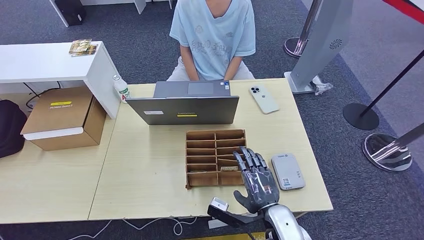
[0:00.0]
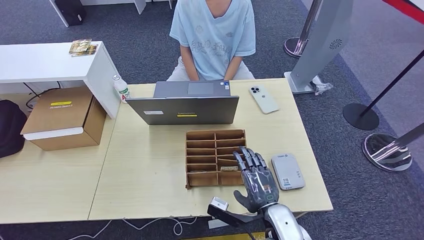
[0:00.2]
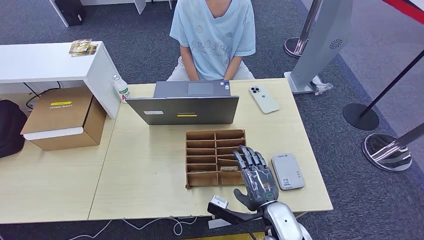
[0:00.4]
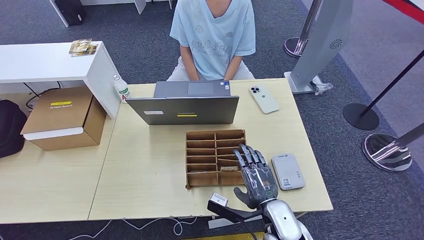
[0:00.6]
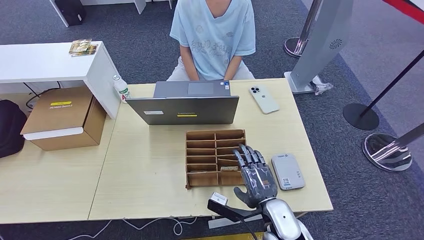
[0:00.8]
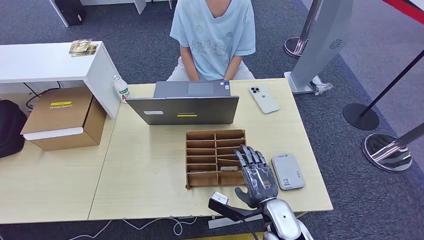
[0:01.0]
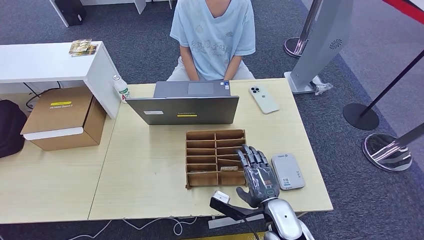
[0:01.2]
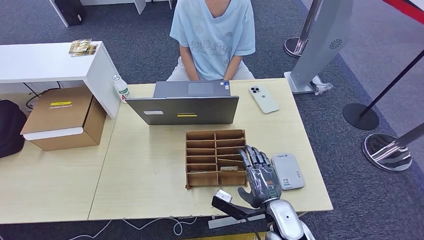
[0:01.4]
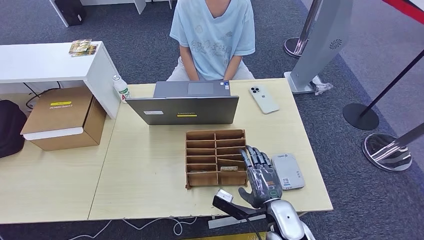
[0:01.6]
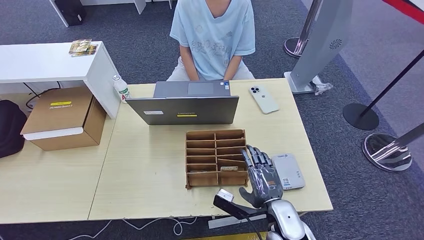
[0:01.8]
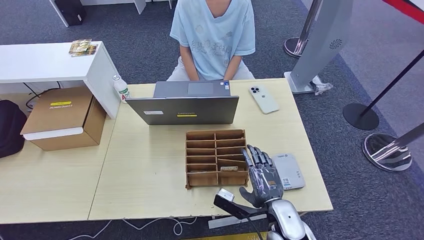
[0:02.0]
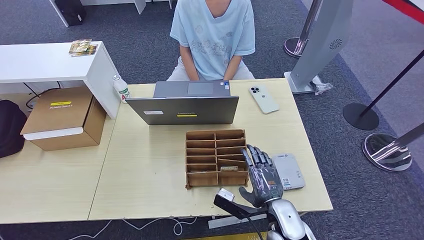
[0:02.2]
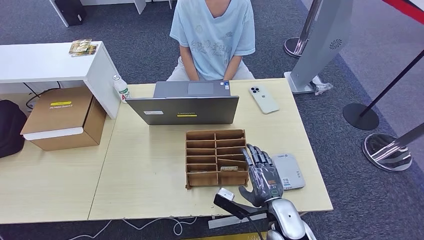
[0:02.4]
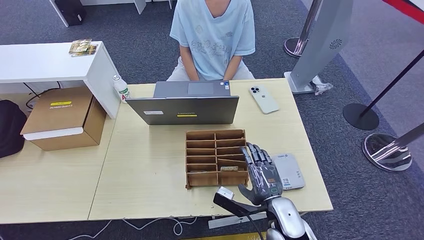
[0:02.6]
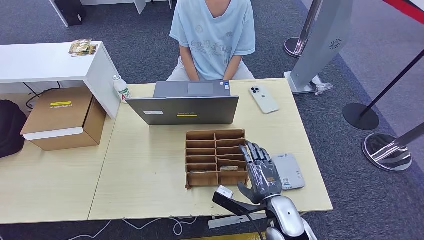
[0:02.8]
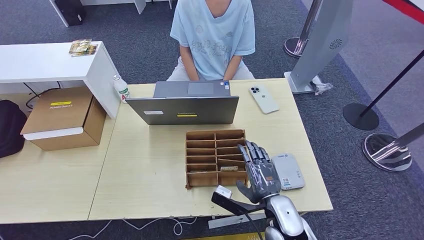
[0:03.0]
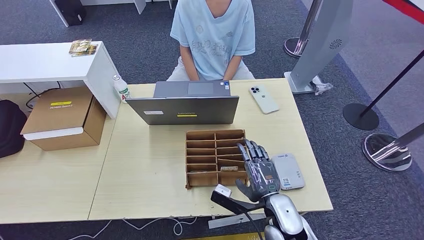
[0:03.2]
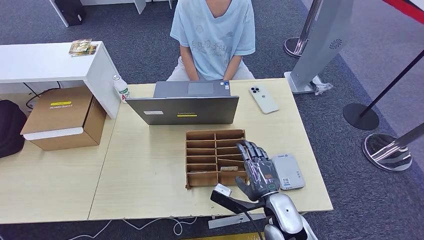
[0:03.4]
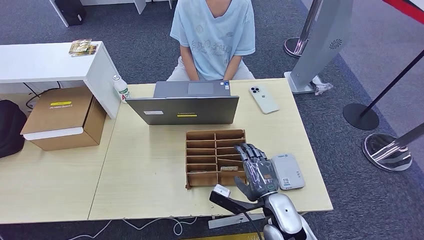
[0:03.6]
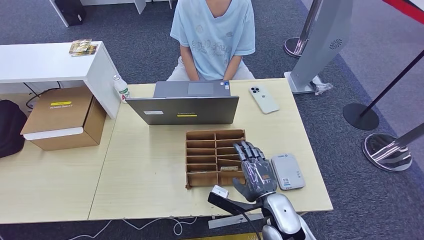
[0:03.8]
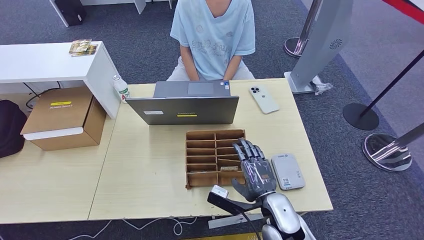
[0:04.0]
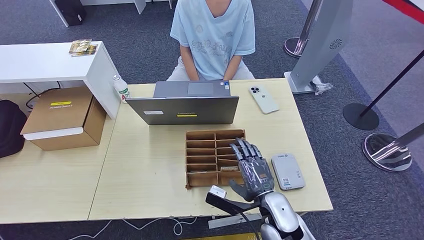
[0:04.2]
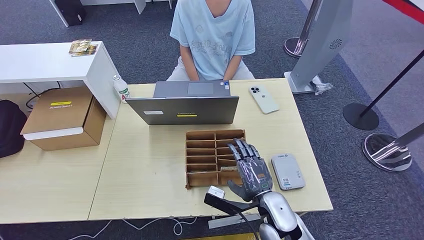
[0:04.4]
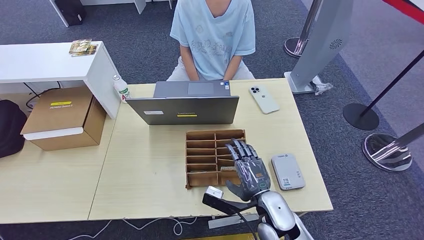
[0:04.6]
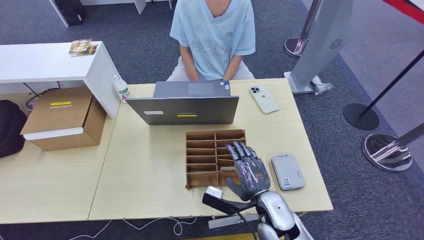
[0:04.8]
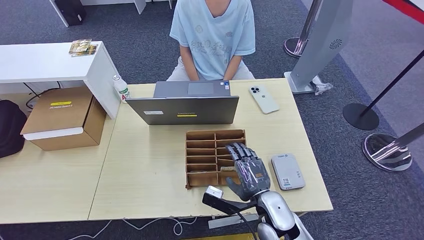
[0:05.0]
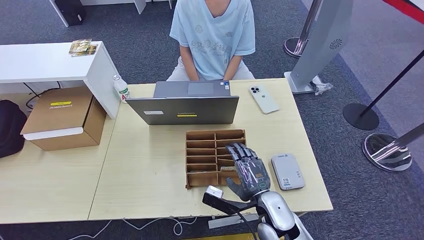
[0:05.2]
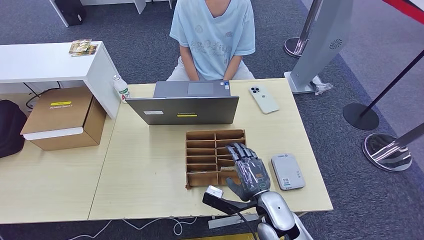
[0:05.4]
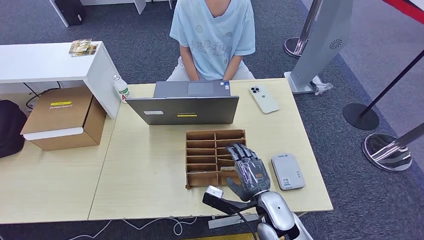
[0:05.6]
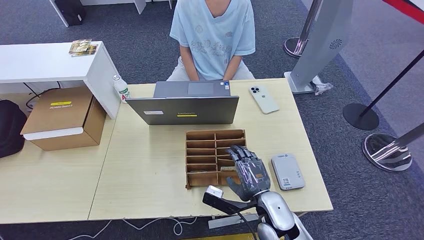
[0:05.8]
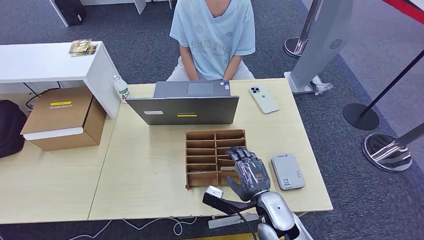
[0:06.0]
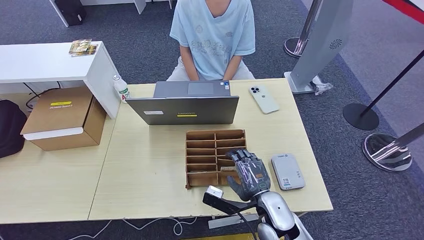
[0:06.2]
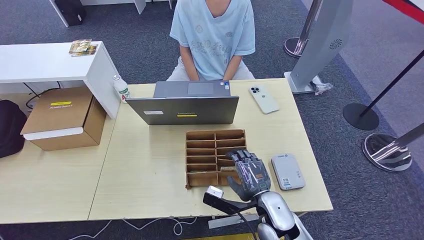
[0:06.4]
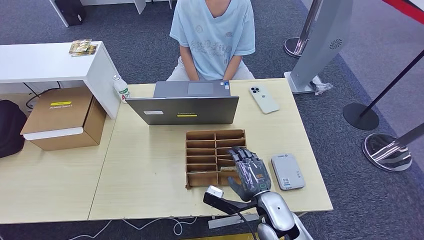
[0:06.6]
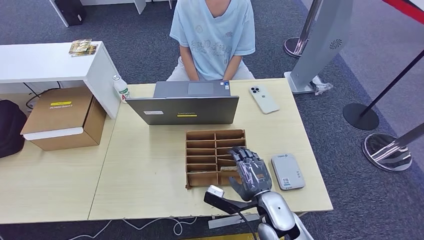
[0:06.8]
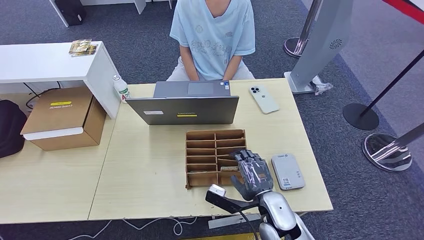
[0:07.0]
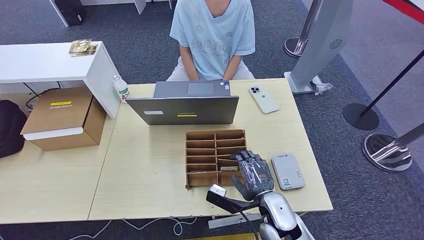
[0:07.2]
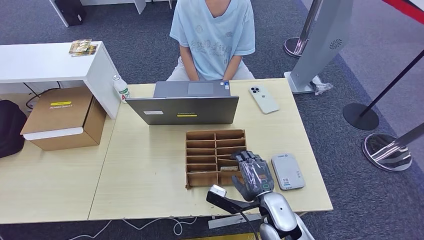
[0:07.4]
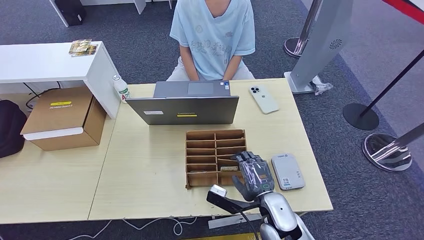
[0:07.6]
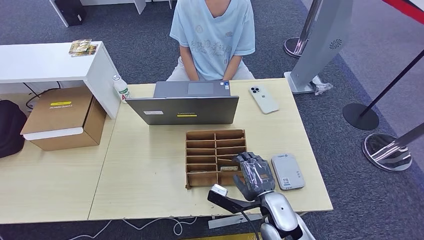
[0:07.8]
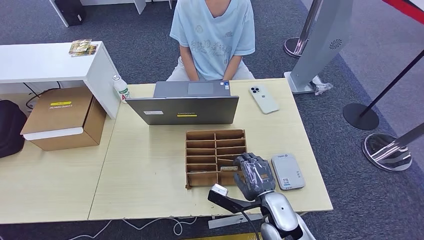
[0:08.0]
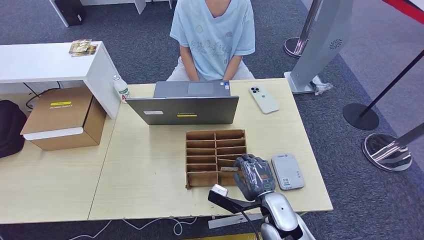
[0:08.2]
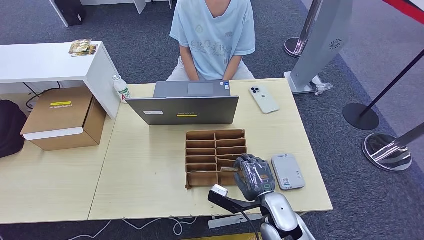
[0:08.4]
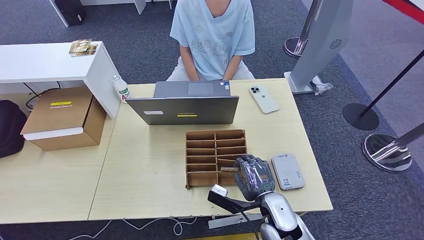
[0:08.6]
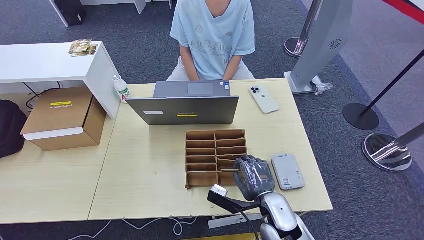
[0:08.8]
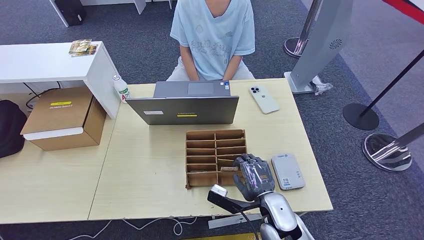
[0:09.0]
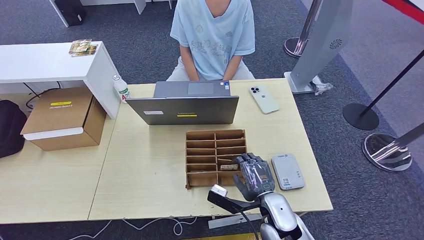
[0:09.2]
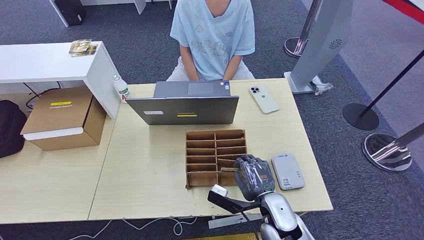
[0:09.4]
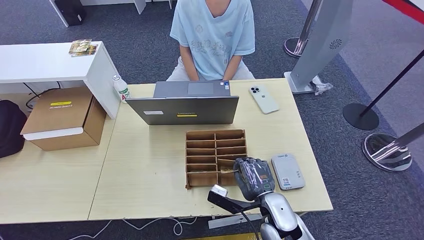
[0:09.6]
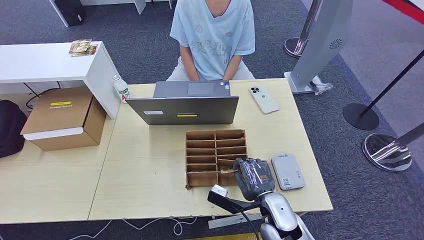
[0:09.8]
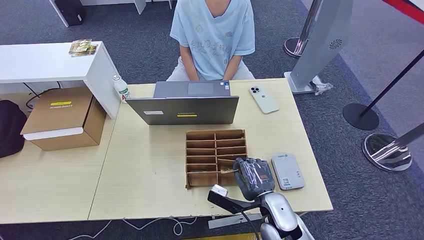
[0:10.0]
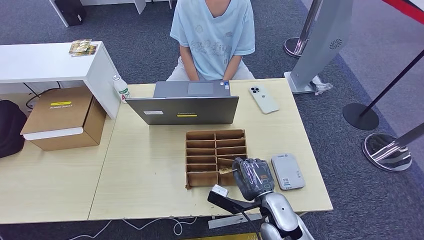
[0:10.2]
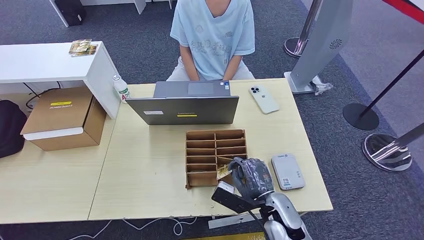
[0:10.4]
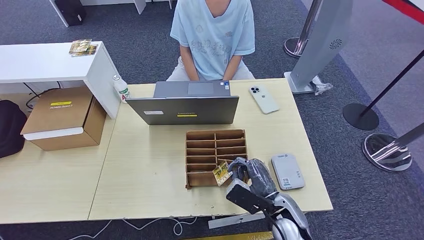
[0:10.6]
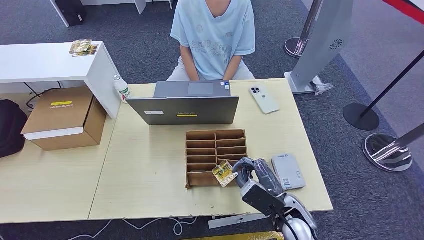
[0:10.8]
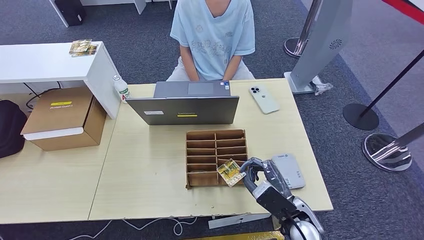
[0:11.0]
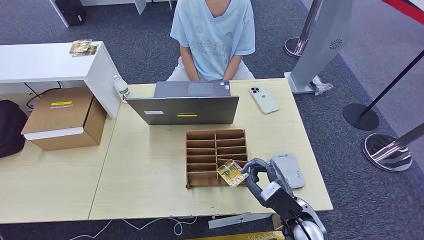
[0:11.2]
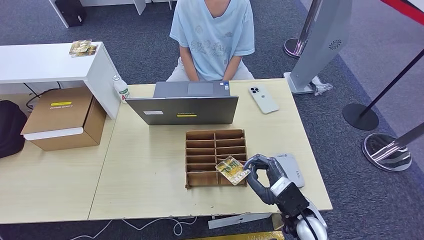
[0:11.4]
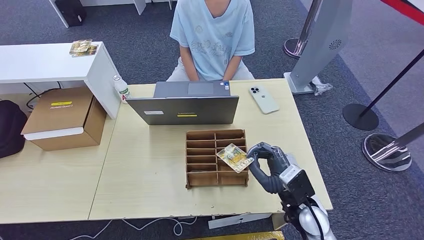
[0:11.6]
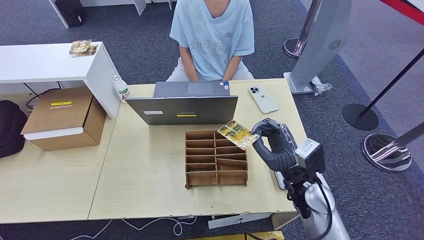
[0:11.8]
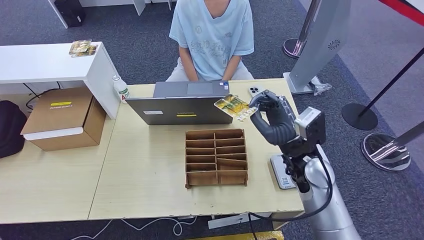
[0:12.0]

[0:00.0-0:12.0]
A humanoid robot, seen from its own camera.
Step, 0:03.4 to 0:10.8: Pick up the room key from the key card box.
0:00.0 to 0:01.6: The hands make only small movements.
0:01.6 to 0:03.0: Neither hand changes place.
0:03.0 to 0:04.4: There are only small adjustments of the hands.
0:04.4 to 0:09.0: Both hands stay put.
0:09.0 to 0:10.4: The hands make only small movements.
0:10.4 to 0:12.0: The right hand is displaced upward, forward and to the right by approximately 15 cm.

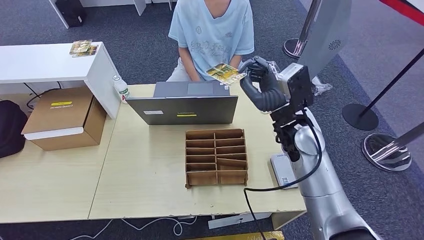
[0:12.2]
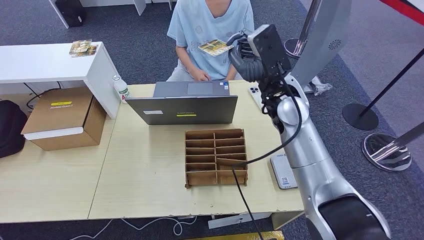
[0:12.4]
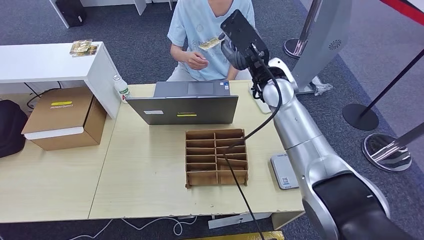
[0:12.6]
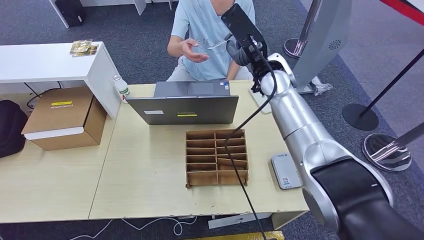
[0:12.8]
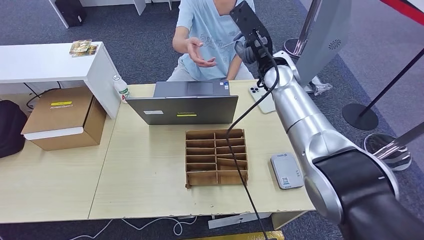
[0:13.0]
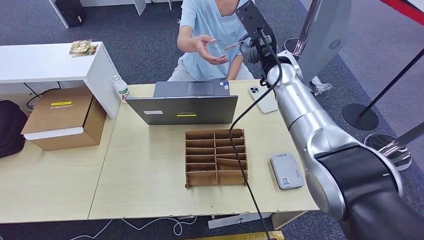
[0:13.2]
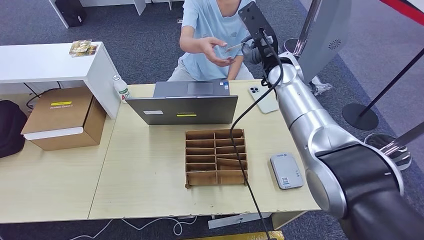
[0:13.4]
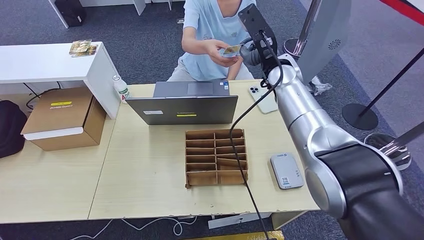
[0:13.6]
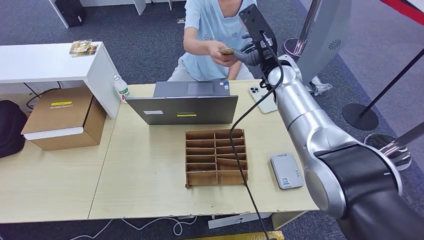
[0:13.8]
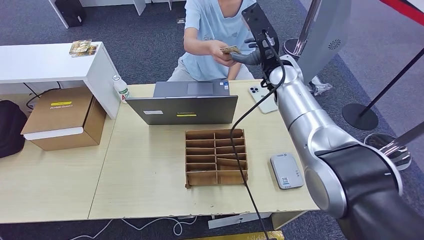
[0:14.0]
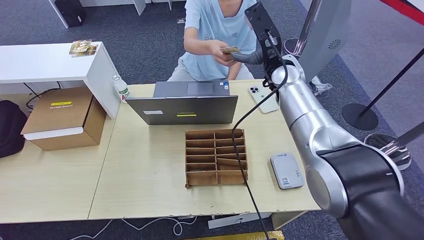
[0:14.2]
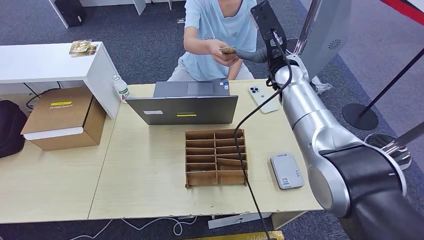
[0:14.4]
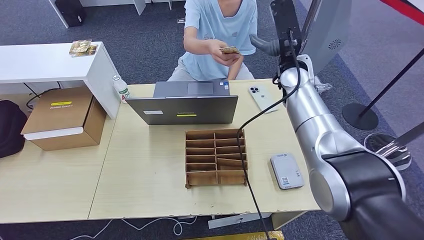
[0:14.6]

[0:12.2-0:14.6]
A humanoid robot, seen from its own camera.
Step, 0:12.2 to 0:14.6: Hand the room key to the person.
0:12.2 to 0:13.4: The right hand is displaced forward and upward by approximately 15 cm.

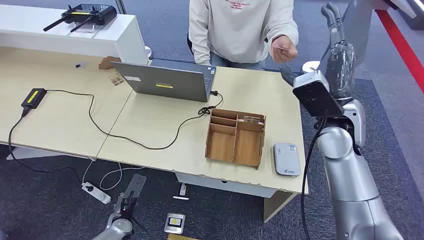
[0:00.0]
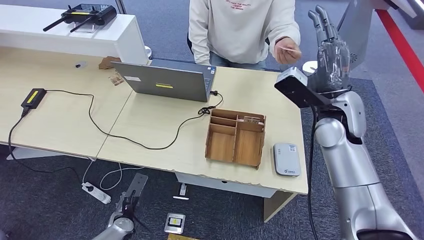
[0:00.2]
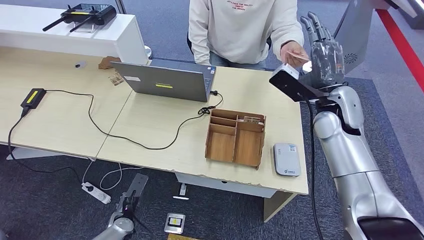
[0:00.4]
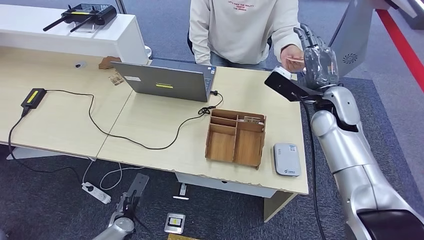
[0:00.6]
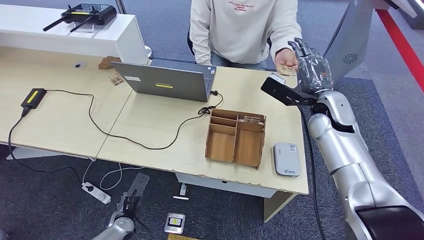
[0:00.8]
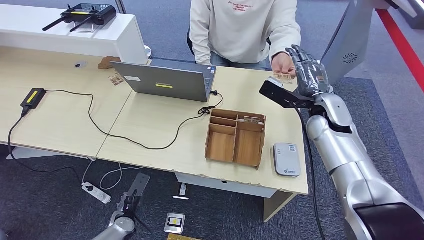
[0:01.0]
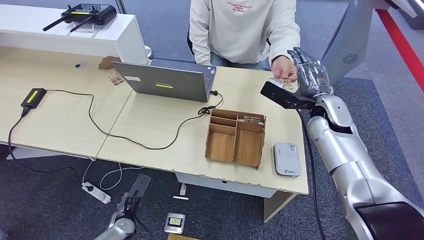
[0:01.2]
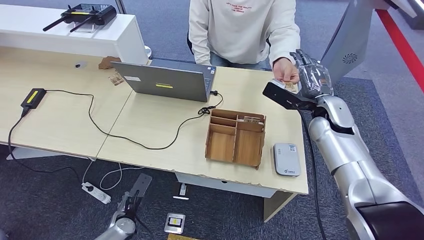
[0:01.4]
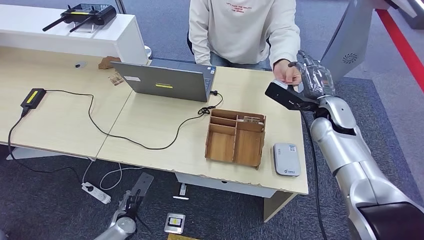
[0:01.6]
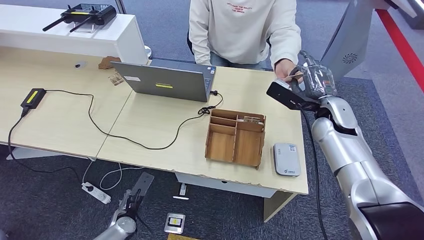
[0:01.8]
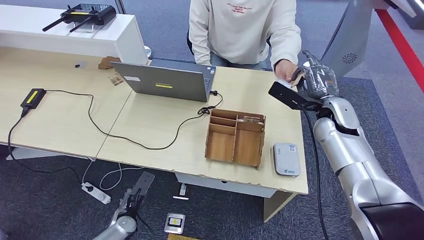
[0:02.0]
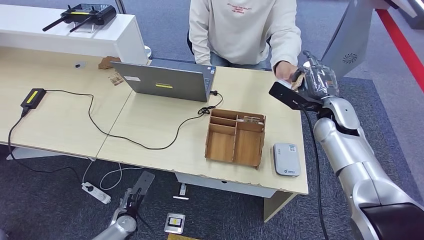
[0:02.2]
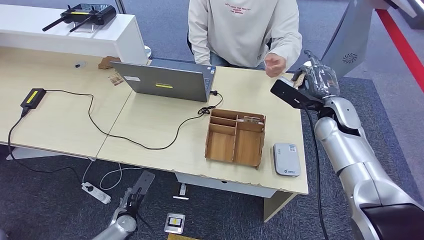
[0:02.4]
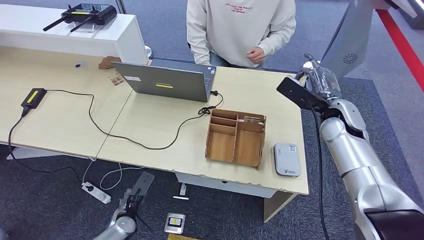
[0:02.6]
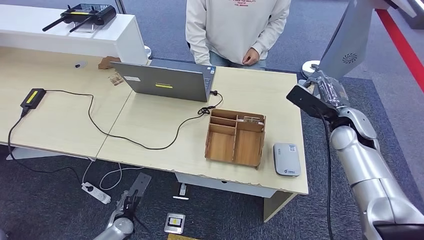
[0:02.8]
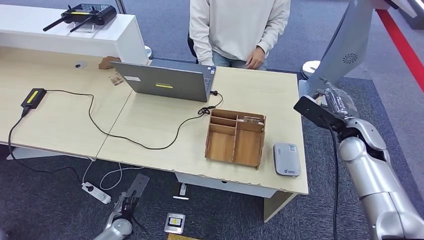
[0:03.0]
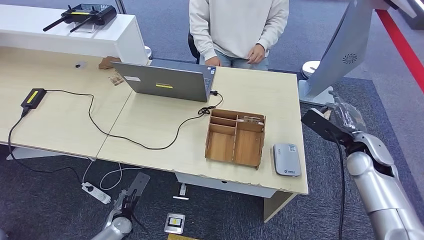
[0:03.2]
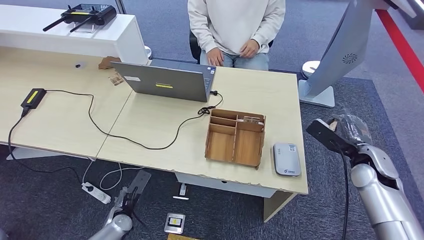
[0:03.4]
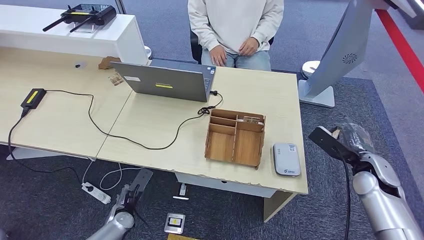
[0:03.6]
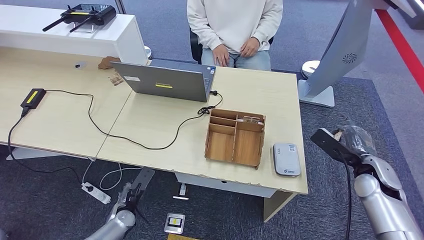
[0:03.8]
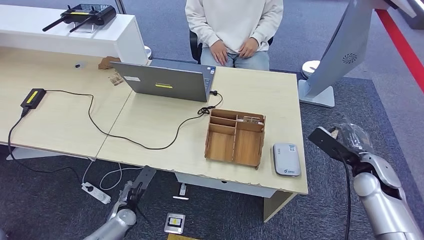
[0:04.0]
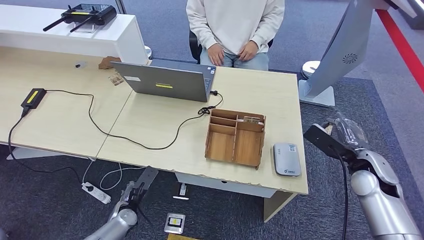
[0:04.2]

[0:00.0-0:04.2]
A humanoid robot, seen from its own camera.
Step, 0:00.0 to 0:03.0: Take the ID card from the person's hand.
0:01.4 to 0:02.8: The right hand shifts approximately 5 cm to the right.
0:02.8 to 0:04.2: The right hand moves backward, downward and to the right, some 10 cm.
